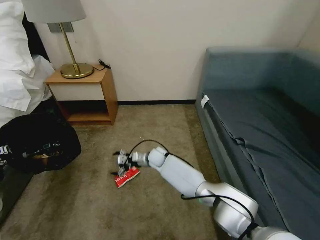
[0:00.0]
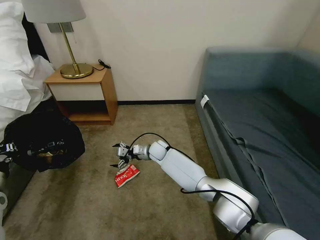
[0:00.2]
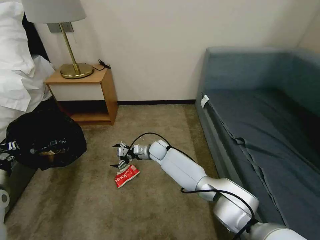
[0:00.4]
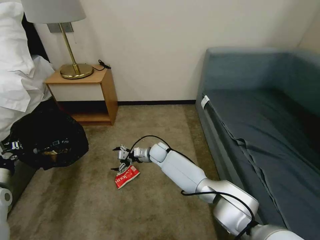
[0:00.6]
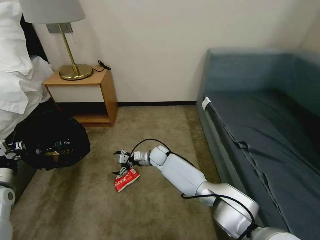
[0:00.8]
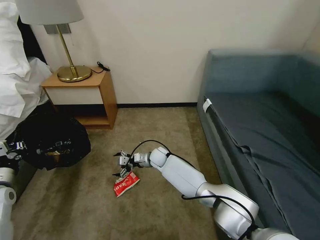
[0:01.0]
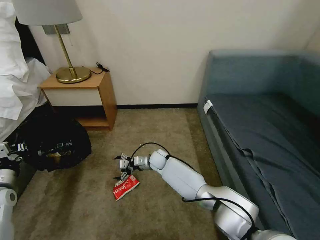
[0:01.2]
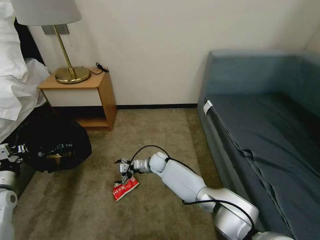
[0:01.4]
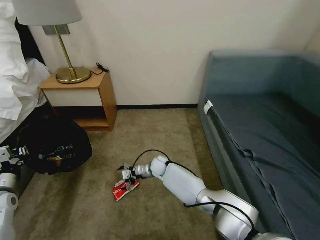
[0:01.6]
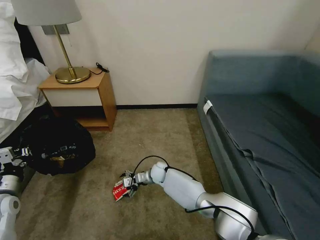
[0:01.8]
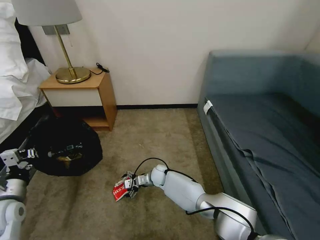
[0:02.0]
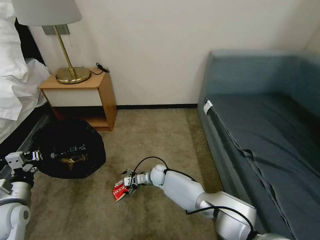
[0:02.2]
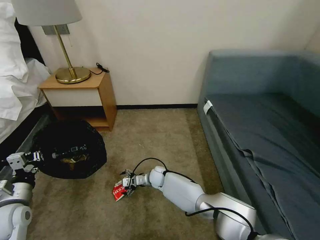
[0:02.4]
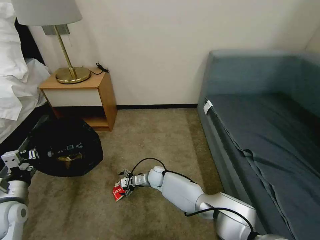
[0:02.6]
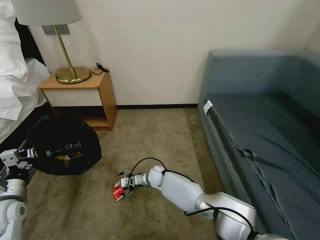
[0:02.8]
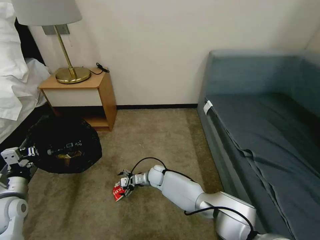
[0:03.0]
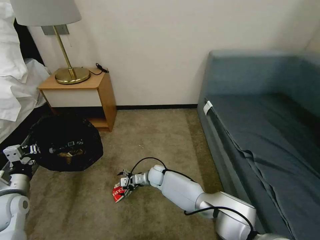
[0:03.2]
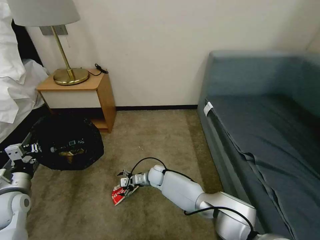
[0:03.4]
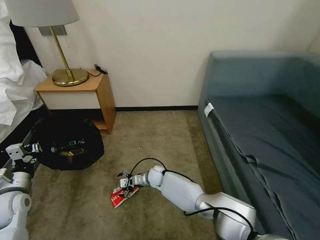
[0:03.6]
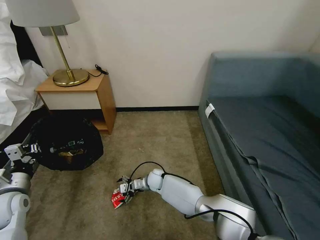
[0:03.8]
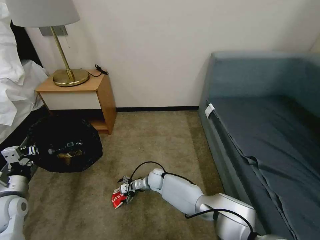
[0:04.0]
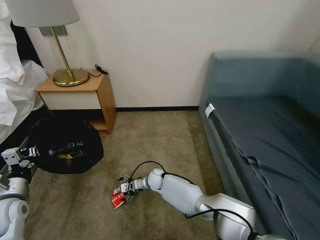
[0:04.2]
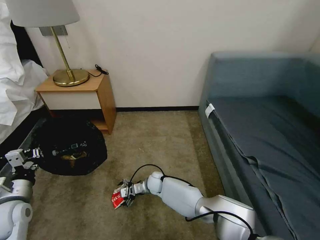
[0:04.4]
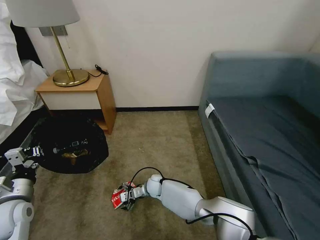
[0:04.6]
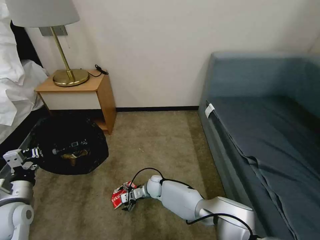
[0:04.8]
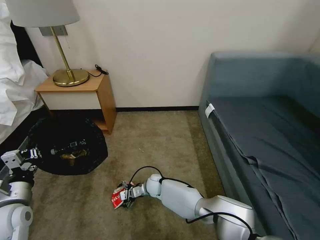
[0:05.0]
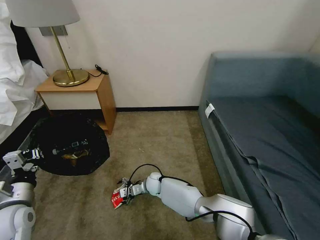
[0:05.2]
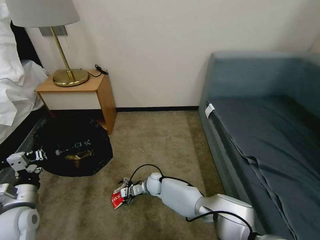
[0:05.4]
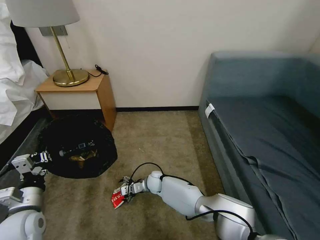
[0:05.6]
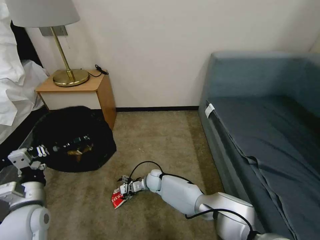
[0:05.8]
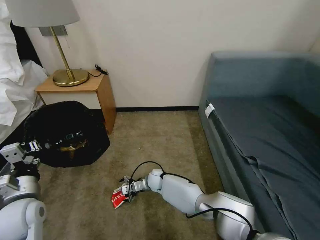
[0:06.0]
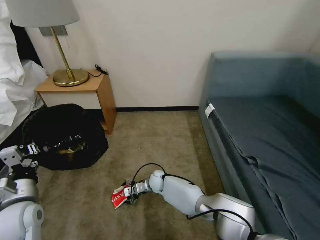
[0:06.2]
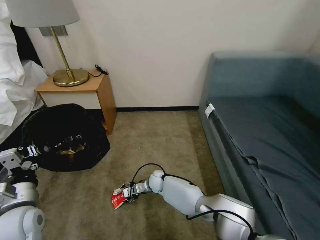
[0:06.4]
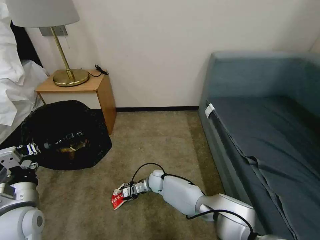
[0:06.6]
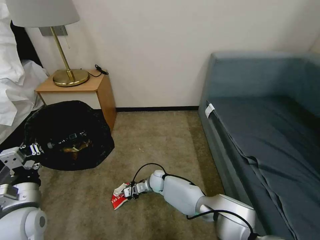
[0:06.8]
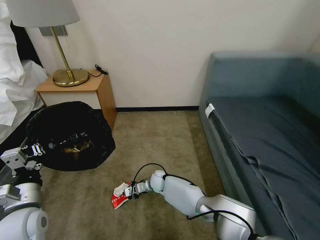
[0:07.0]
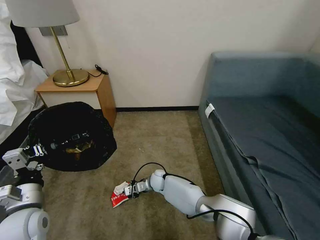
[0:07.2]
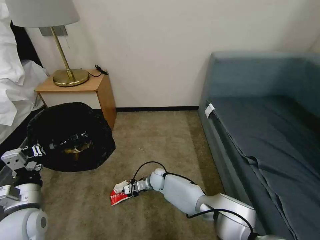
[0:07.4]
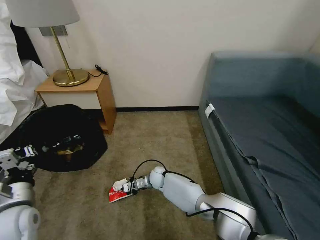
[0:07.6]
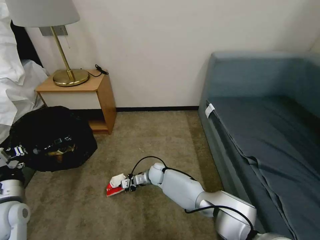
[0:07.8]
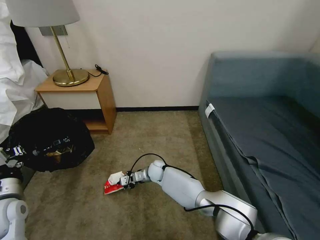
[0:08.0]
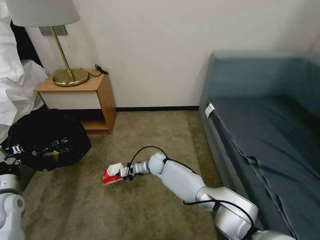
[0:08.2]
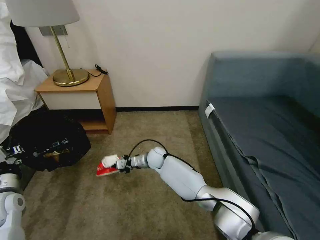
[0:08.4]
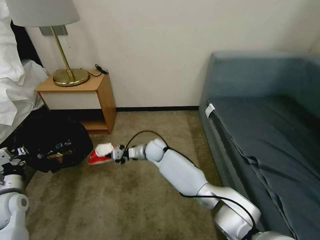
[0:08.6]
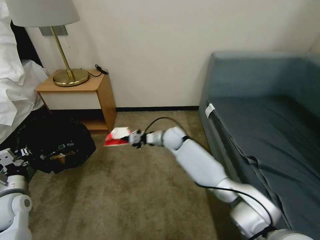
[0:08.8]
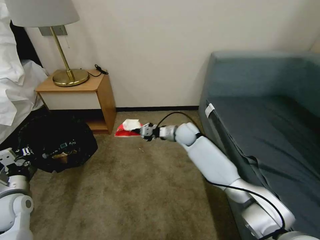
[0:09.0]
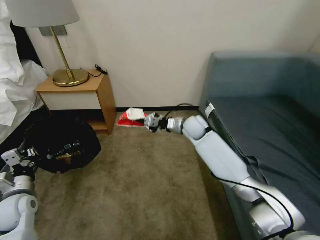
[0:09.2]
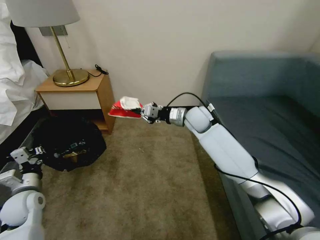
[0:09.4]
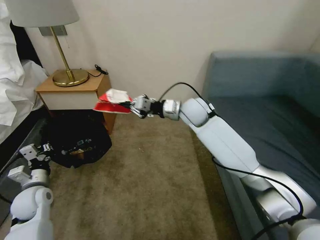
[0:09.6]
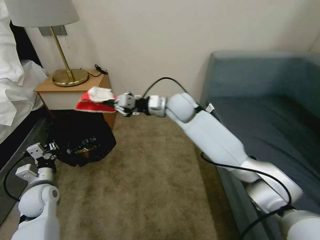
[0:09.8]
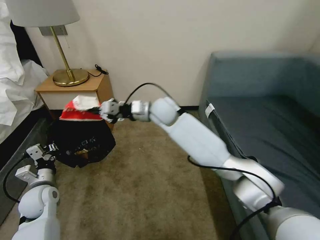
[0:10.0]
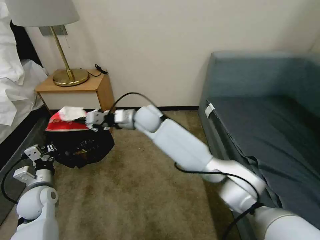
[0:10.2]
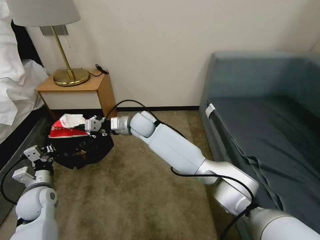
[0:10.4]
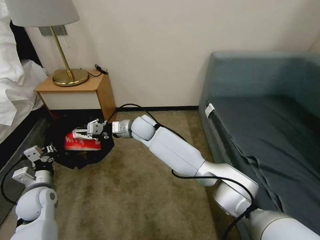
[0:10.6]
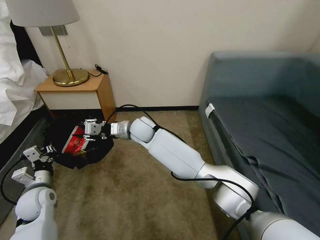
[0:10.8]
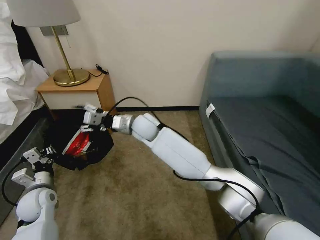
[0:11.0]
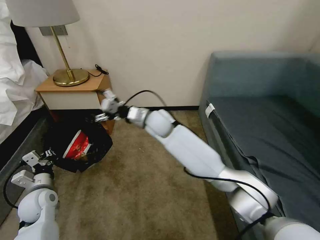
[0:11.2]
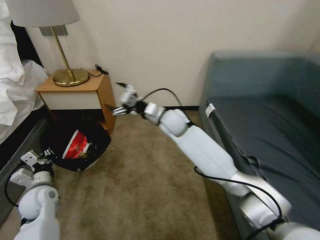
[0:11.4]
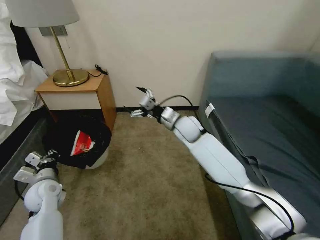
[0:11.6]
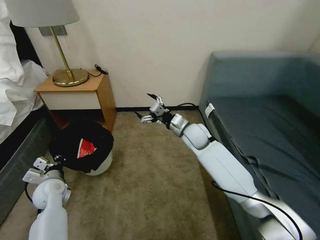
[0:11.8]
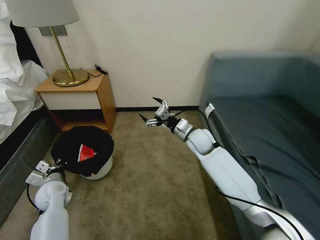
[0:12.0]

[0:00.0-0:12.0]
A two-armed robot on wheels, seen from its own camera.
Task of the whole recording: Pick up the trash bin, then pick up the garbage on the floor and place it into the trash bin.
0:00.0 to 0:01.6: The right gripper ends up some 5 cm from where it was.
0:03.0 to 0:04.4: The grippers move only a little.
0:04.4 to 0:06.0: The left gripper goes approximately 10 cm to the right.
0:06.0 to 0:07.6: The right gripper closes.
0:07.6 to 0:09.0: The right gripper travels upward, to the right and forward by some 25 cm. Meanwhile the left gripper shifts some 5 cm to the left.
0:09.0 to 0:10.4: The right gripper is displaced to the left and upward by some 20 cm. The left gripper moves roughly 5 cm.
0:10.4 to 0:12.0: The left gripper moves roughly 5 cm. Meanwhile the right gripper shifts about 20 cm to the right, and opens.

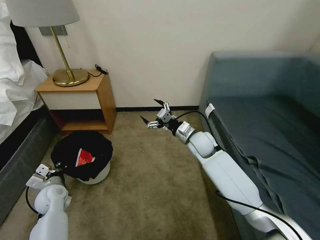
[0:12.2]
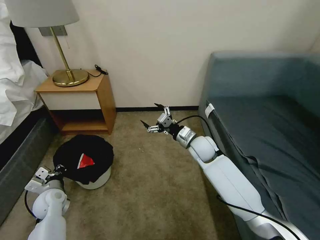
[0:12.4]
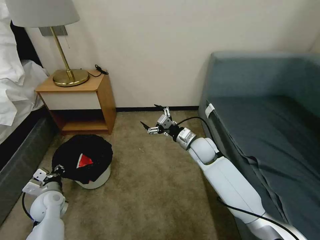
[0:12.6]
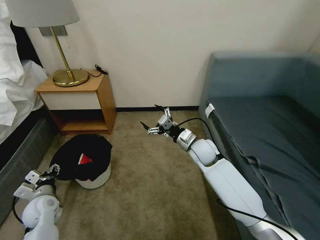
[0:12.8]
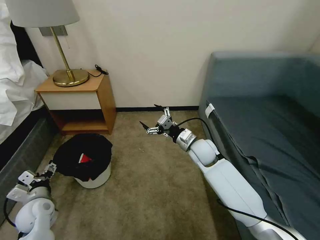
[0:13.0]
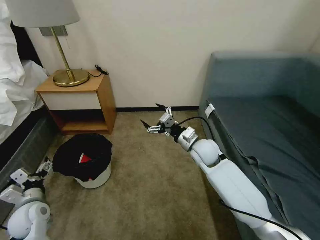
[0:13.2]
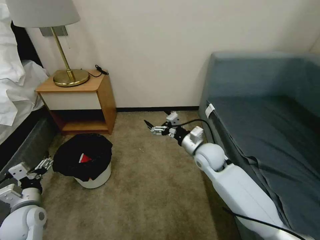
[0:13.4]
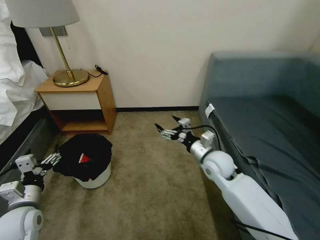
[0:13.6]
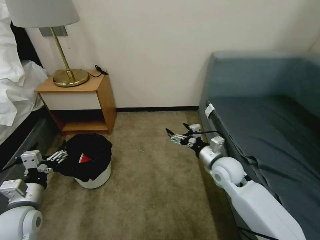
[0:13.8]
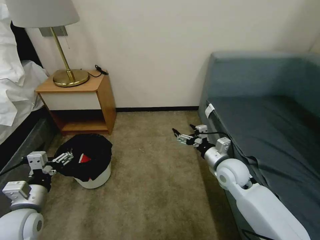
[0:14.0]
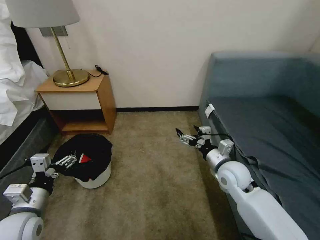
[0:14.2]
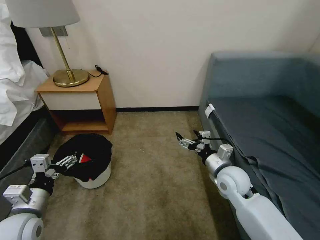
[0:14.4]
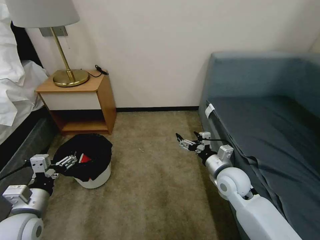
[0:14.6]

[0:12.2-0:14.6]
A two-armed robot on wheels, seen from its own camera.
Task of the whole recording: Pick up the trash bin, then pick up the garbage on the floor and place it into the trash bin.
0:12.2 to 0:13.4: The left gripper shifts some 10 cm backward, and opens its fingers.
0:13.4 to 0:14.6: The right gripper moves backward and to the right, about 10 cm. Meanwhile the left gripper goes about 10 cm upward and to the right.

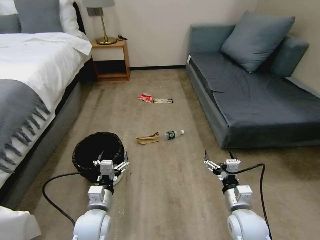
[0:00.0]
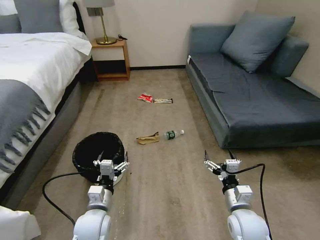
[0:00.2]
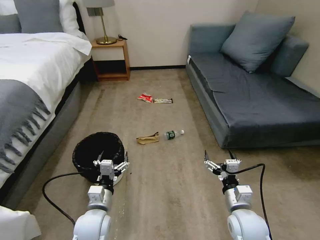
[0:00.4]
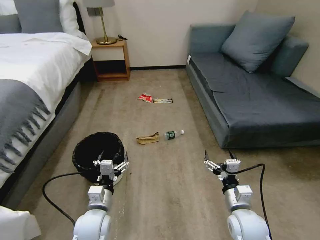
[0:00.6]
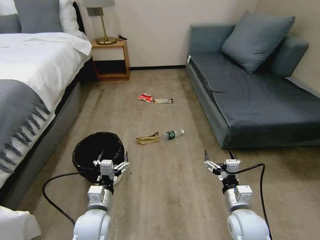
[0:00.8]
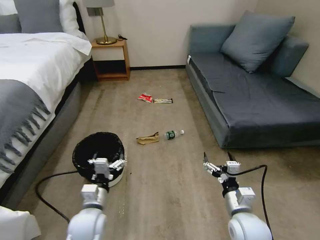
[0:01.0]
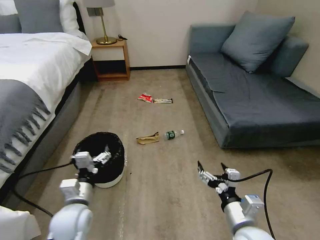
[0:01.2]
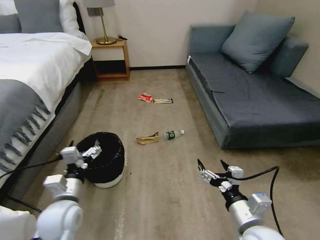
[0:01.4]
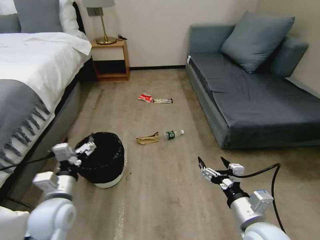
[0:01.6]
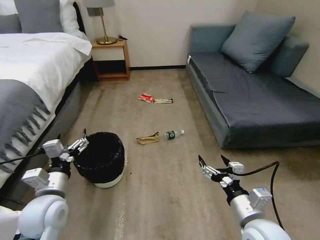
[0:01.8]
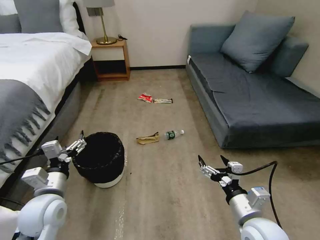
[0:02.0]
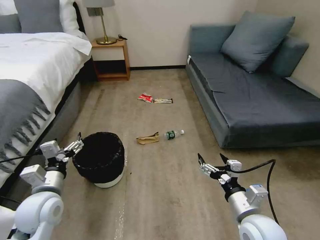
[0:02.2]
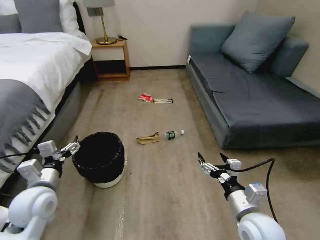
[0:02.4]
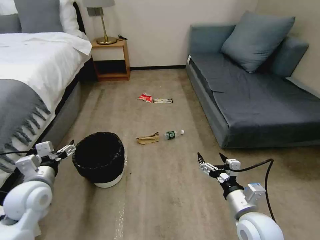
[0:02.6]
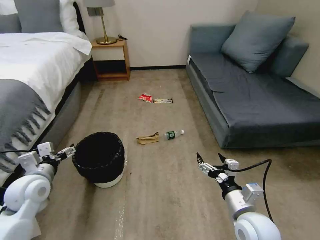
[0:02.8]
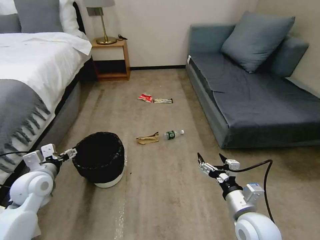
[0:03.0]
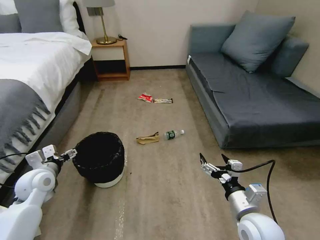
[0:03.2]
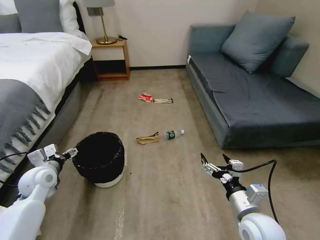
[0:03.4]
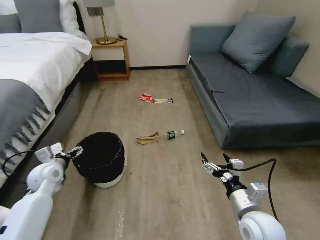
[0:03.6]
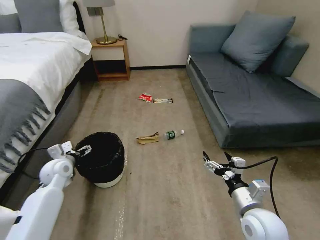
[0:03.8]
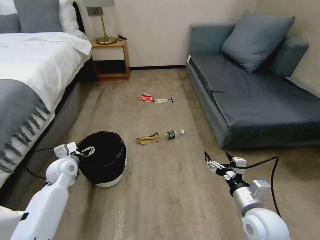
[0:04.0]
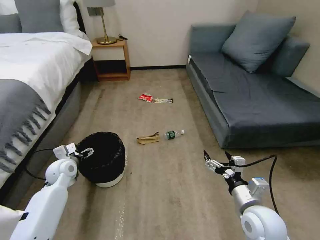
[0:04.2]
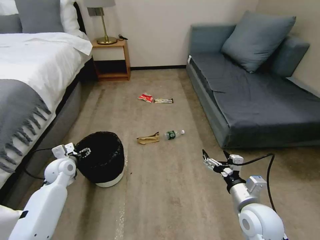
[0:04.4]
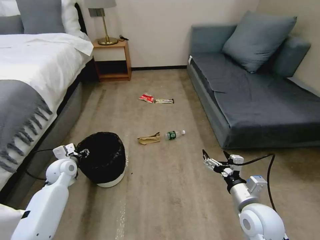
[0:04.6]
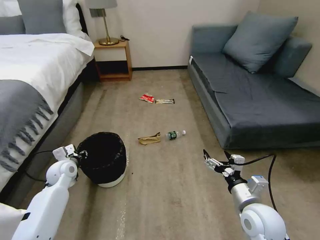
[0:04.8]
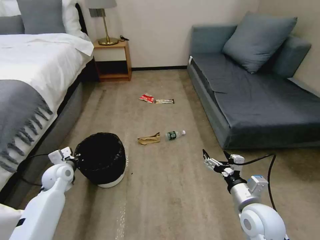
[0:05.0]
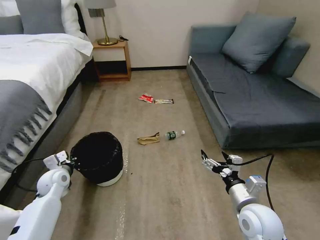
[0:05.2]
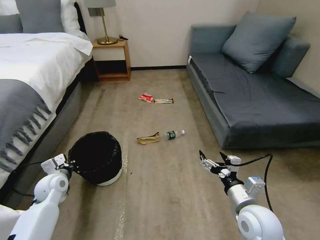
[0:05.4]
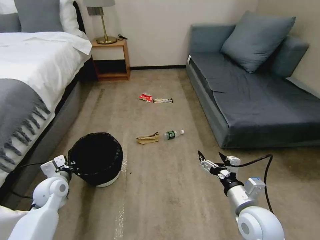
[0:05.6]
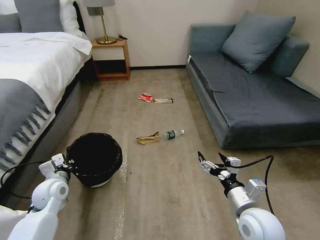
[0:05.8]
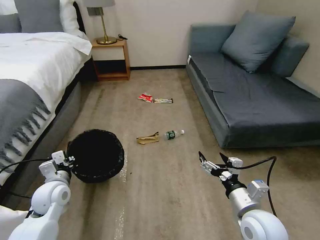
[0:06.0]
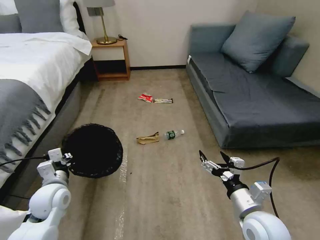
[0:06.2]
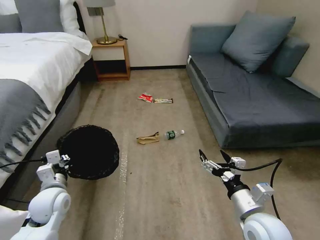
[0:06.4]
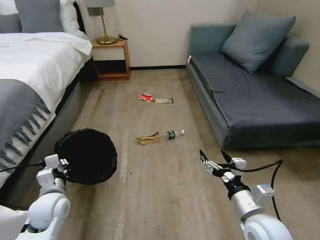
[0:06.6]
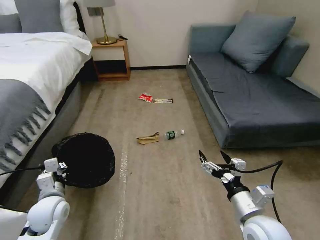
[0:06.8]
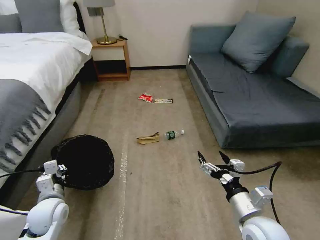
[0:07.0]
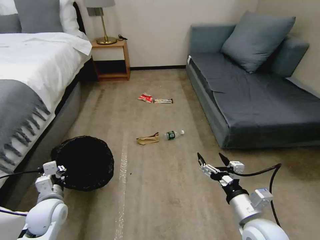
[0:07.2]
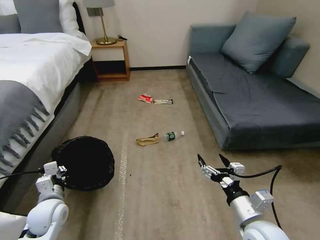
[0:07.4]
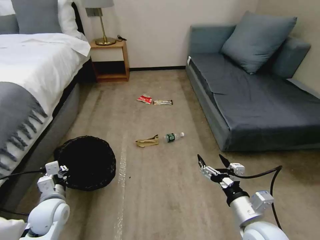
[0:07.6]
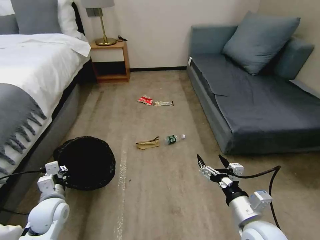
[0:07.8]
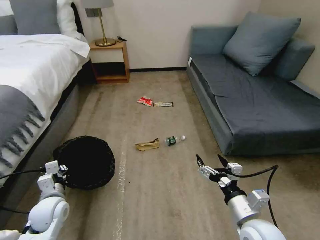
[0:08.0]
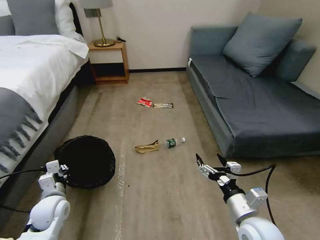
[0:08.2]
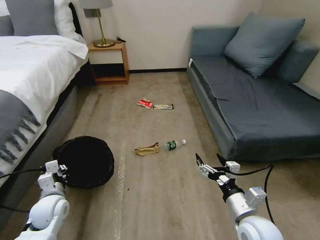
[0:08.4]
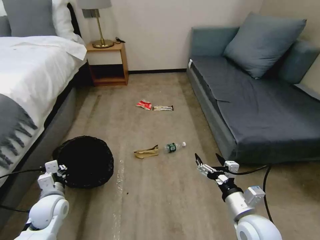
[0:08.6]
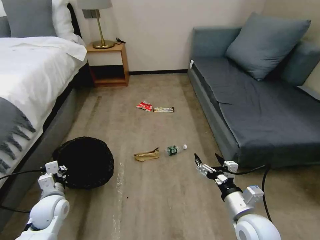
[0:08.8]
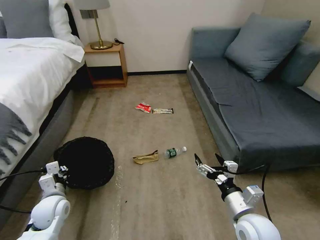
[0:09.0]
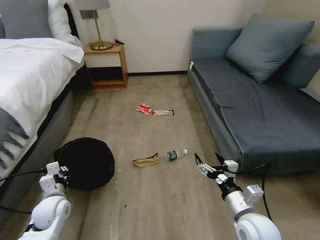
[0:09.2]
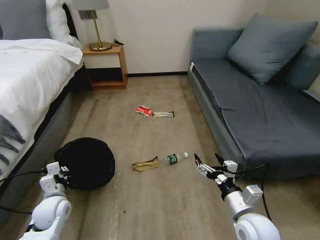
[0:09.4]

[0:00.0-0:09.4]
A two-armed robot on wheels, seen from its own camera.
Task of the whole recording: Pick up the trash bin, then pick up the garbage on the floor and place it into the trash bin.
0:01.6 to 0:03.2: The left gripper heads to the left and forward, covering approximately 15 cm.
0:03.2 to 0:04.8: The left gripper travels forward and downward by some 10 cm, and closes up.
0:04.8 to 0:06.2: The left gripper shifts roughly 10 cm backward and upward.
0:06.2 to 0:07.8: The left gripper shifts by some 5 cm.
